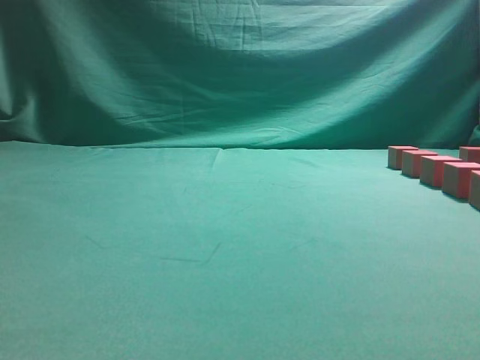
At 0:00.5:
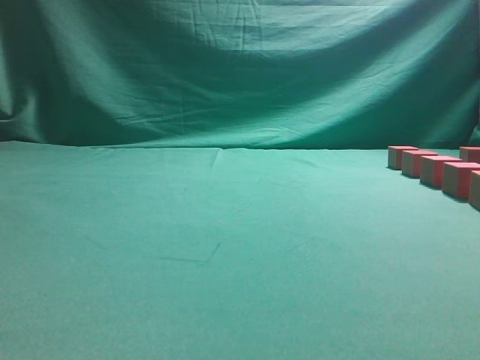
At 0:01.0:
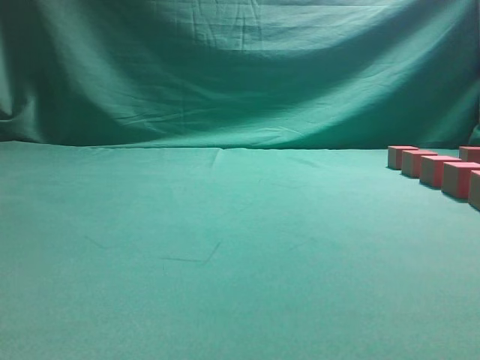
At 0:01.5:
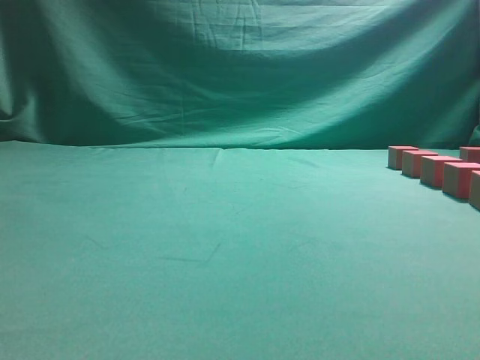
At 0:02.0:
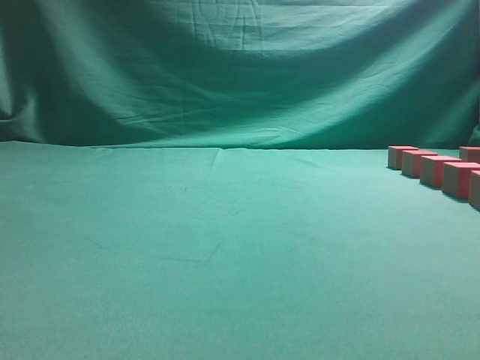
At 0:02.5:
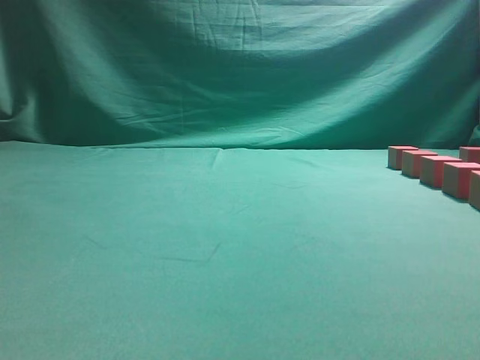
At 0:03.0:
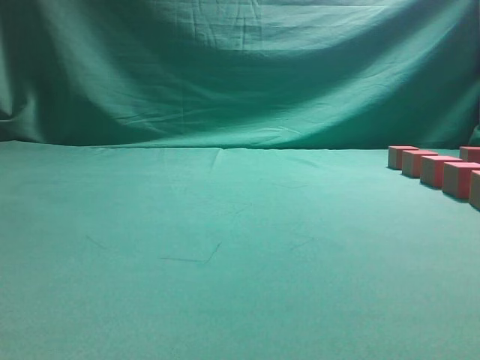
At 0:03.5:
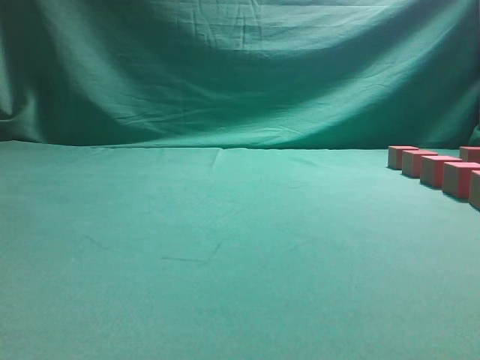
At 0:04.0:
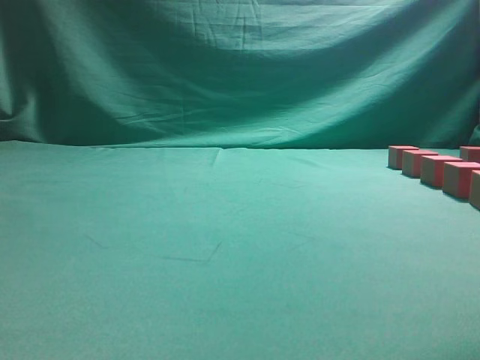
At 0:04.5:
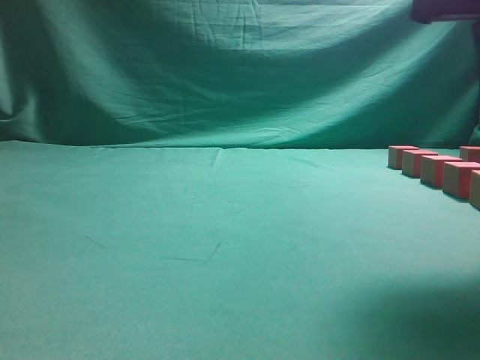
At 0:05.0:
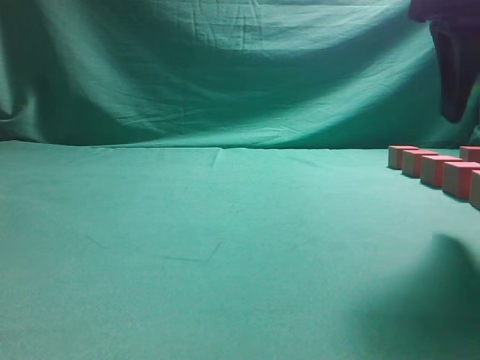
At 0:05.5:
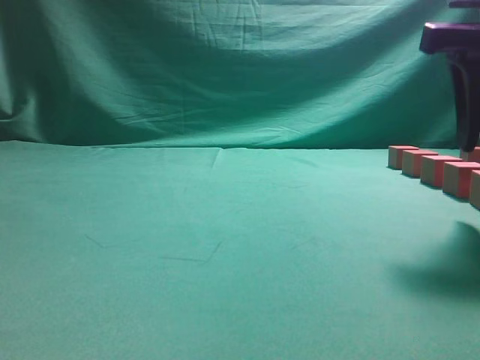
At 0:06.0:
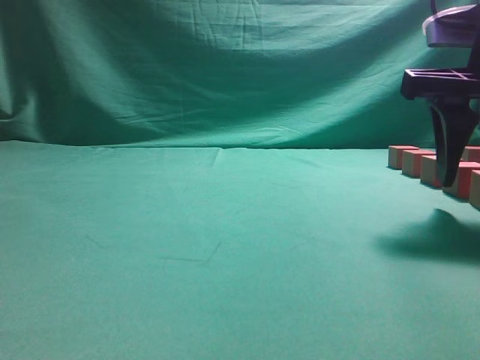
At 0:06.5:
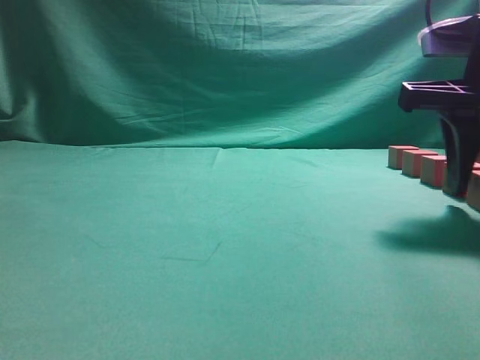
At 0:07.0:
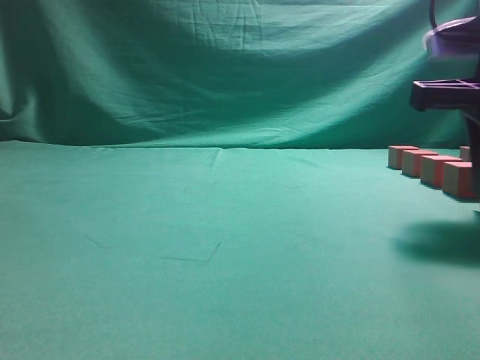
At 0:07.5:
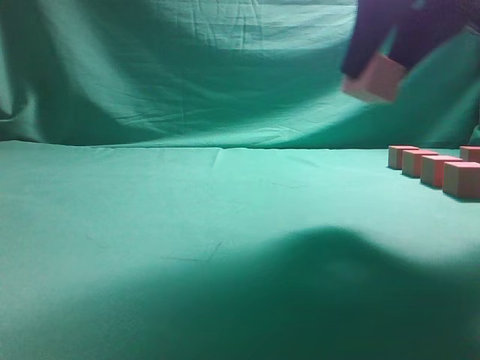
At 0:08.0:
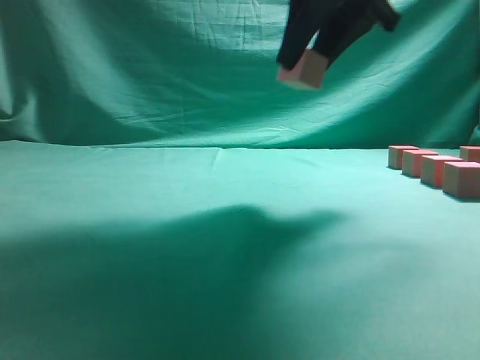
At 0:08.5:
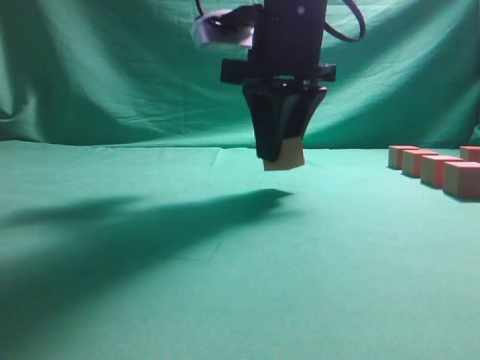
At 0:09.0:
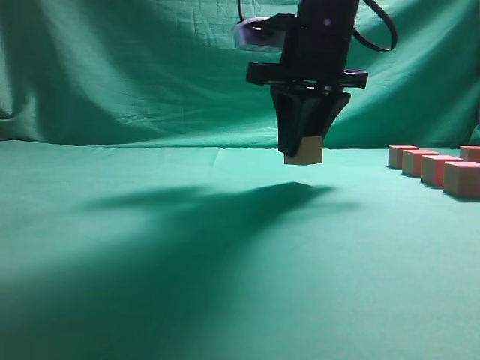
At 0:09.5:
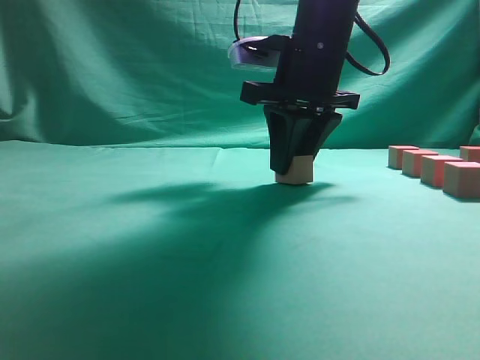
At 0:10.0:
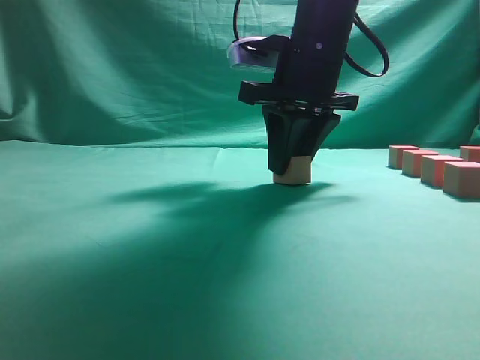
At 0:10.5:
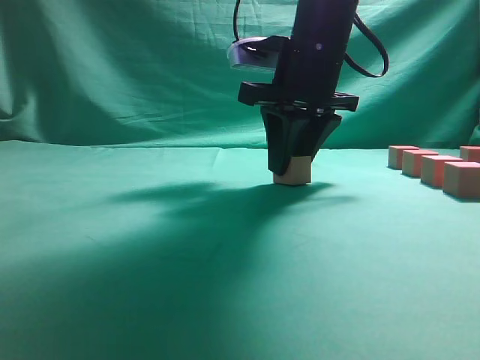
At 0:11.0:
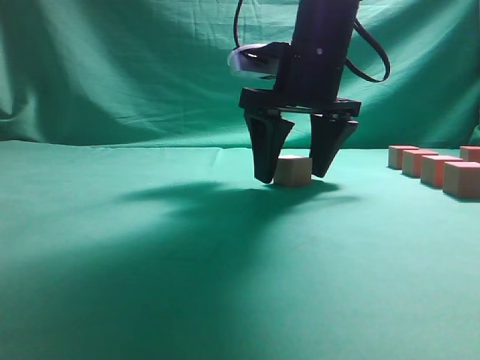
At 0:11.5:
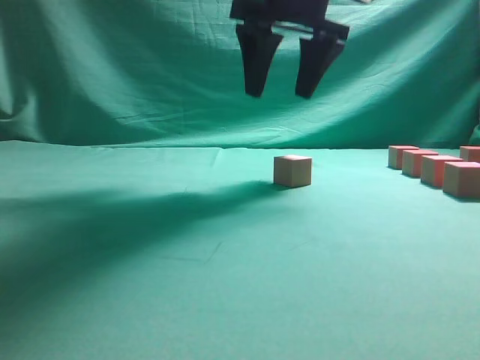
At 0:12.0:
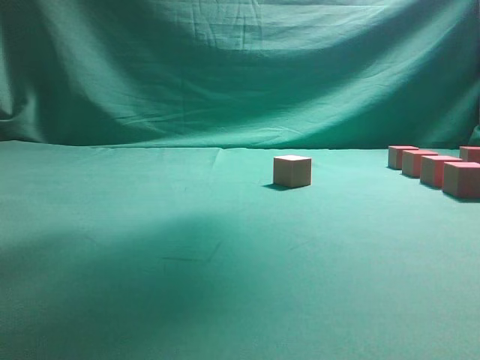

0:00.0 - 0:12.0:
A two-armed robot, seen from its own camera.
Task of the whole recording: pick up the multiple cubes in two columns one by one and place them in another position on the table.
Step, 0:00.0 - 0:07.0: Pick up the block on the table.
Step, 0:07.5 - 0:11.5: Place the block at the correct position to assemble the letter S.
0:04.0 - 0:06.0: The right gripper travels downward and forward by approximately 10 cm, and opens its fingers.
0:06.0 - 0:08.0: The right gripper heads to the left, upward and forward, covering about 15 cm, and closes up.
0:08.0 - 0:10.0: The right gripper is displaced downward by roughly 10 cm.
0:10.0 - 0:12.0: The right gripper heads upward, covering approximately 20 cm, and opens.

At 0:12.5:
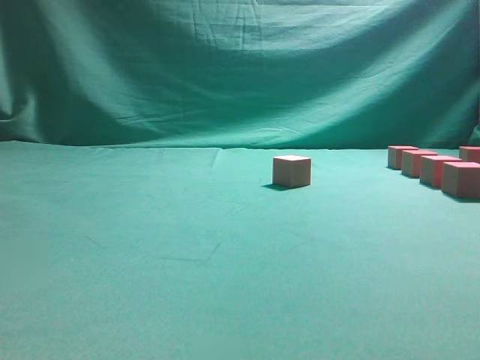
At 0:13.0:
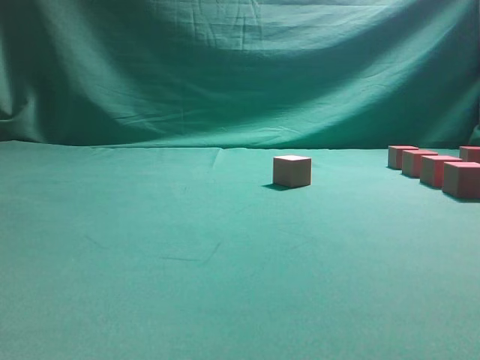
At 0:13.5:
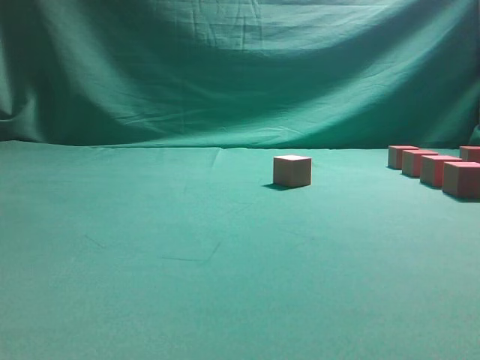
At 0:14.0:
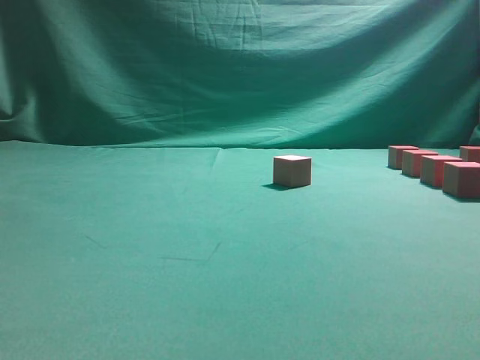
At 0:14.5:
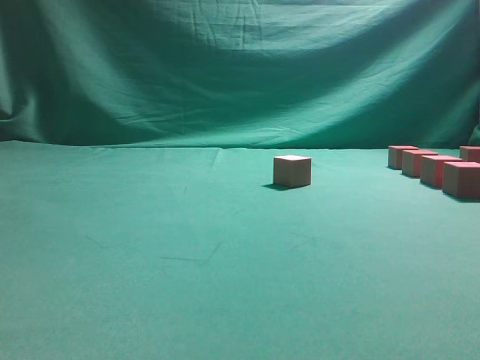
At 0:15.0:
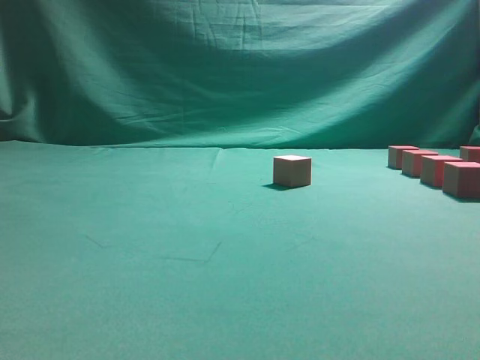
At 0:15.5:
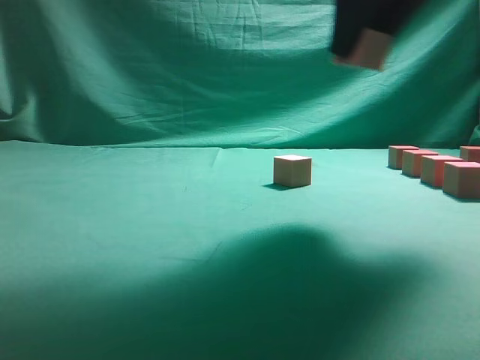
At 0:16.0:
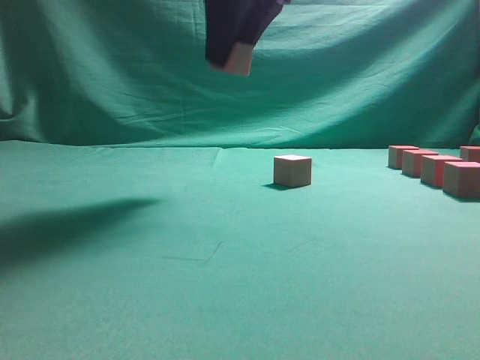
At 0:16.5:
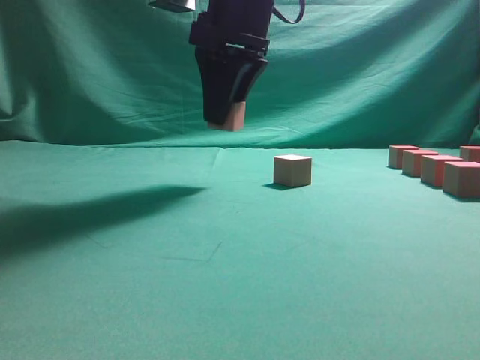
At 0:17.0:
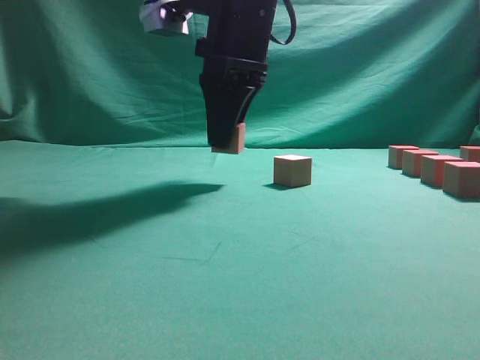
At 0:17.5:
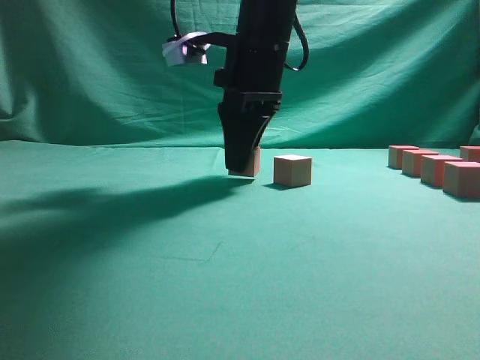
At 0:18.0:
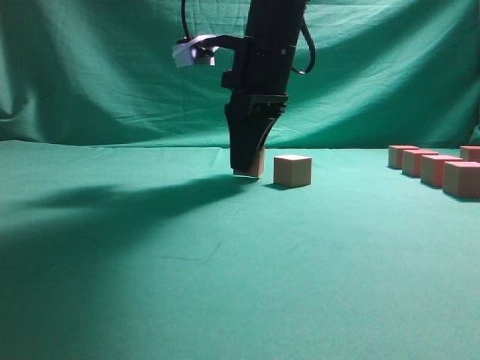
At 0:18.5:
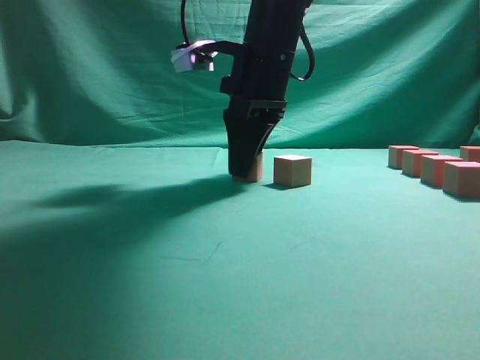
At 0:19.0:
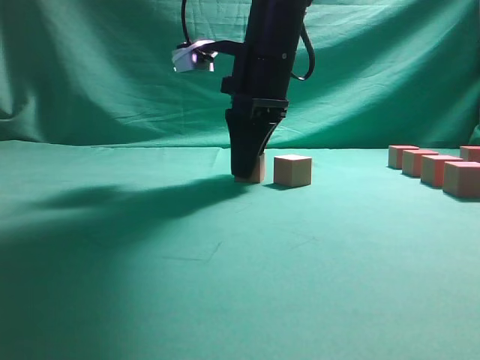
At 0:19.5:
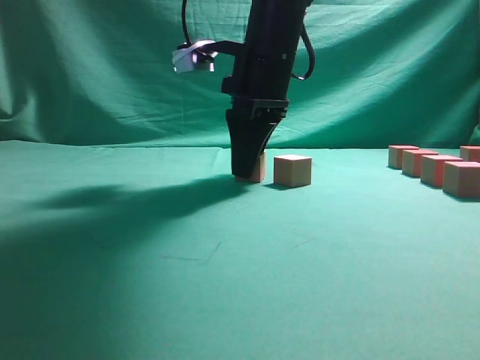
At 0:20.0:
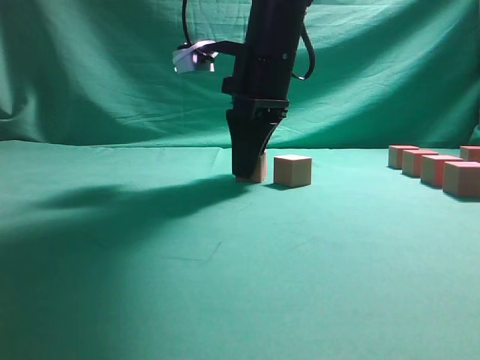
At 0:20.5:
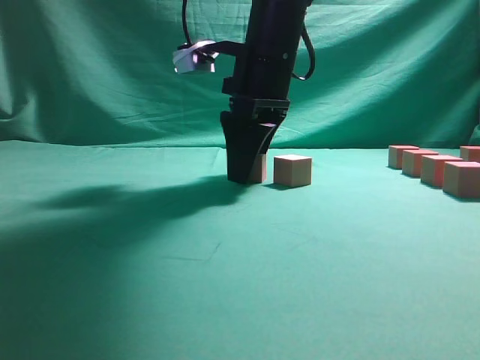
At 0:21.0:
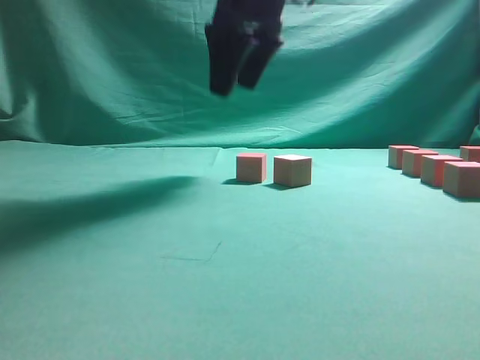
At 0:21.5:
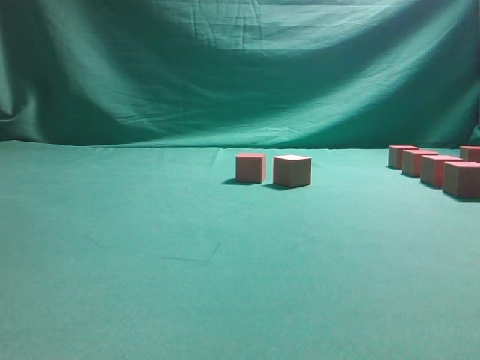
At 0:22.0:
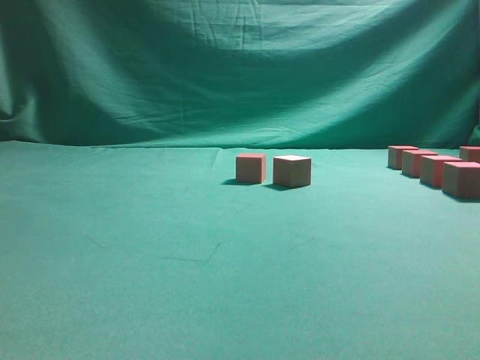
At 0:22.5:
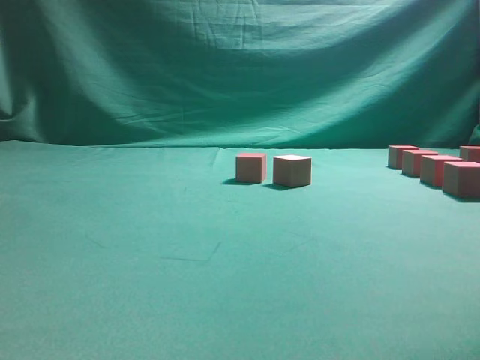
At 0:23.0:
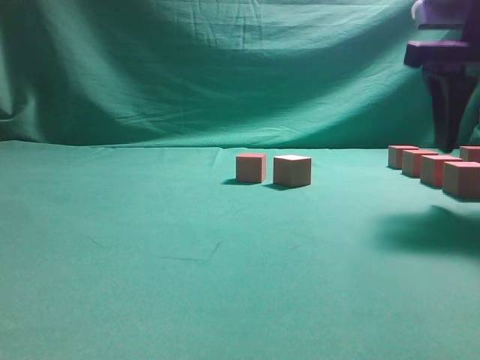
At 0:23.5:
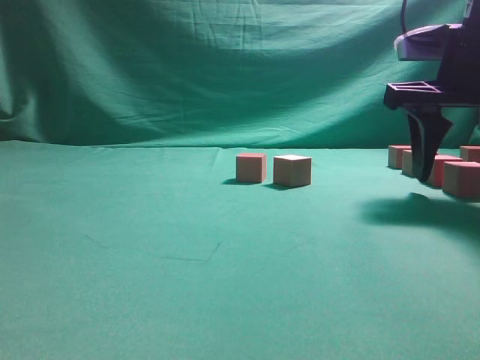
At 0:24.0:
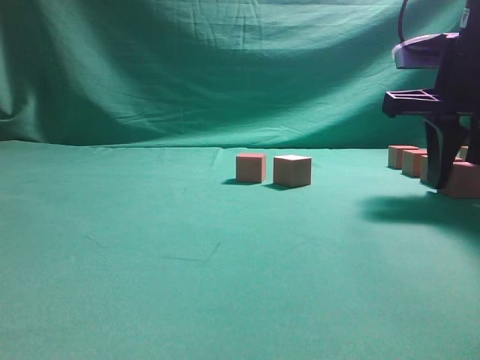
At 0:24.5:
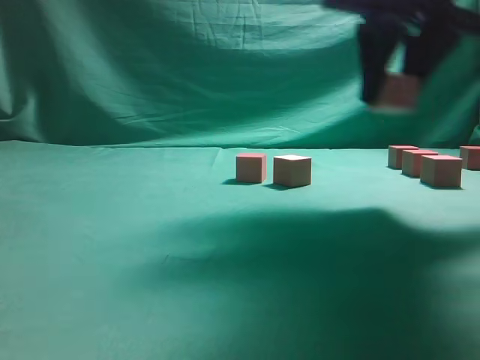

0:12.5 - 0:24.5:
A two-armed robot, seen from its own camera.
Task of the whole recording: pick up the multiple cubes in two columns one by one and place them in another position on the table.
Step, 0:15.5 - 0:21.0: Place the block at the correct position to assemble the letter S.
Step, 0:21.5 - 0:24.0: Pick up the block on the table.
0:14.5 - 0:16.5: The right gripper shifts roughly 30 cm to the left.
0:16.5 - 0:18.5: The right gripper heads downward, covering some 5 cm.
0:18.5 - 0:20.5: The right gripper opens.
0:20.5 - 0:22.5: The right gripper travels to the right, backward and upward by about 30 cm.
0:22.5 - 0:24.5: The right gripper shifts some 10 cm forward and to the left, moves approximately 15 cm downward and comes back, and closes up.

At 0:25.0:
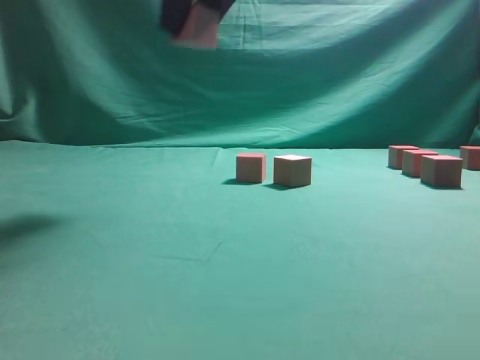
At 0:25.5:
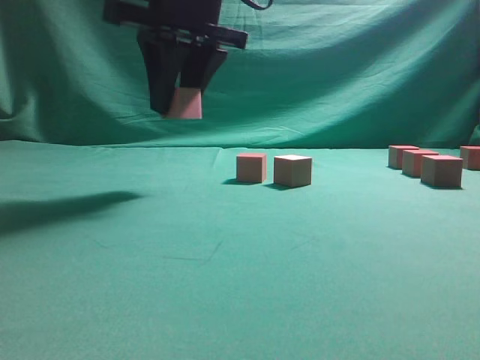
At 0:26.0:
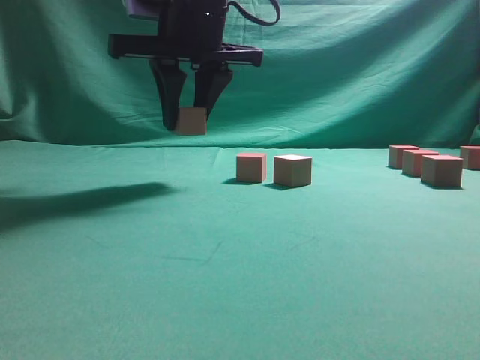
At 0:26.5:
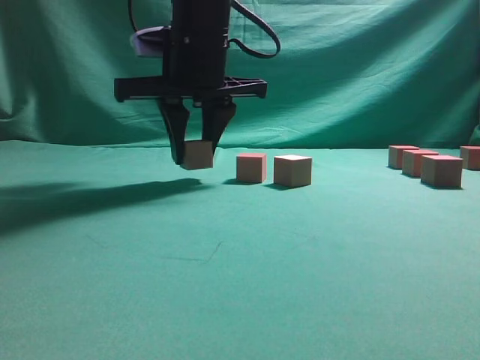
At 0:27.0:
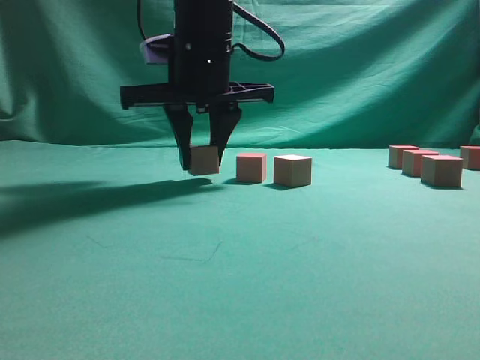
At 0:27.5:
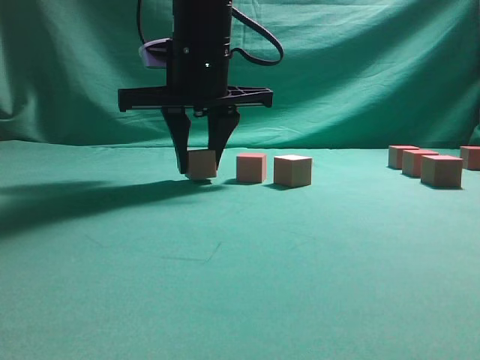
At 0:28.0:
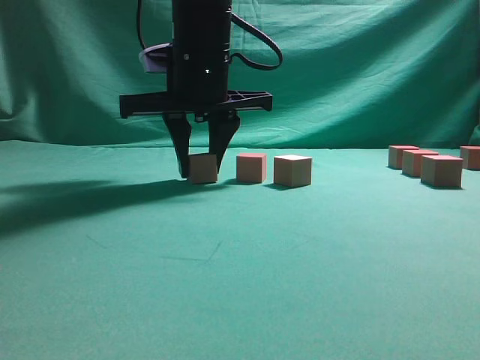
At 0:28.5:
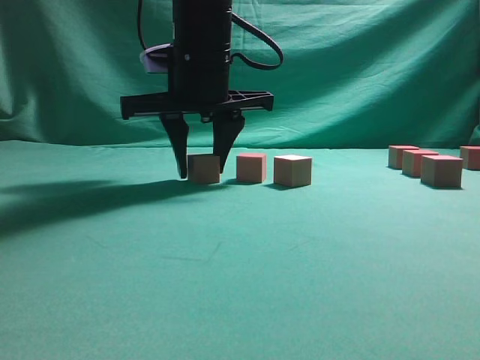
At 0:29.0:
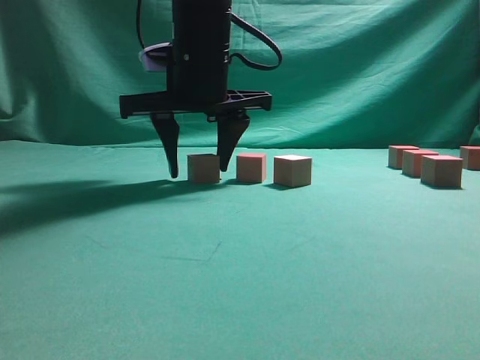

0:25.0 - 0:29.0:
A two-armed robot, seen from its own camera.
Task of the whole recording: pick up the multiple cubes in two columns one by one and place them in another position on the table.
0:25.0 - 0:27.0: The right gripper travels downward and forward by approximately 15 cm.
0:27.0 - 0:29.0: Neither gripper changes place.
